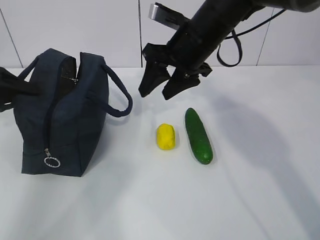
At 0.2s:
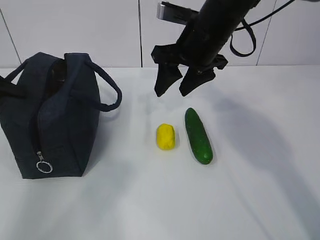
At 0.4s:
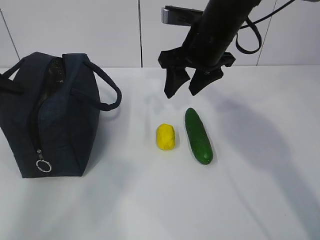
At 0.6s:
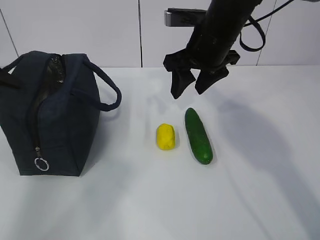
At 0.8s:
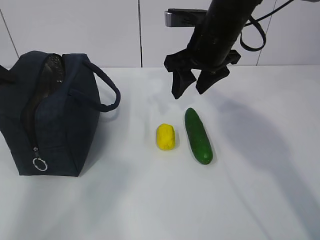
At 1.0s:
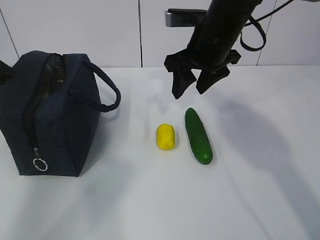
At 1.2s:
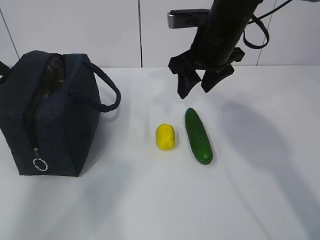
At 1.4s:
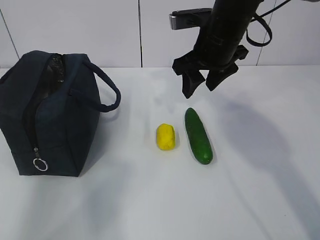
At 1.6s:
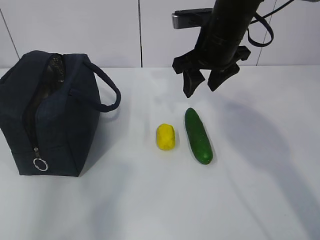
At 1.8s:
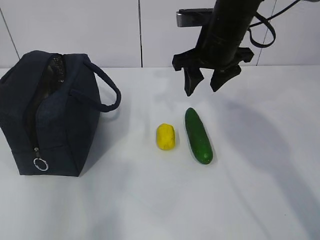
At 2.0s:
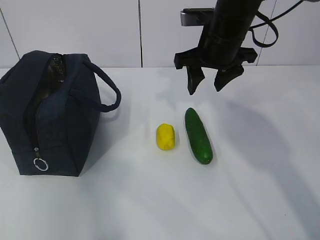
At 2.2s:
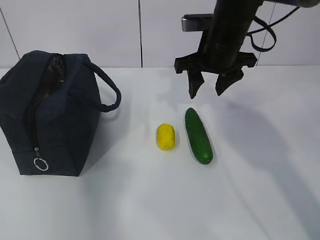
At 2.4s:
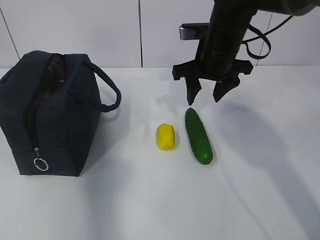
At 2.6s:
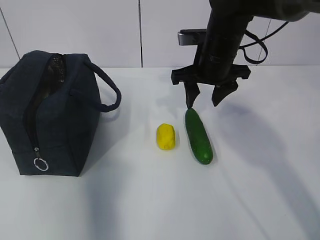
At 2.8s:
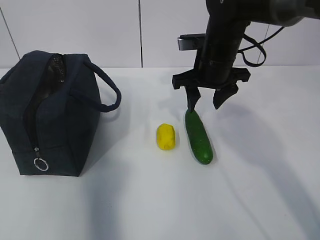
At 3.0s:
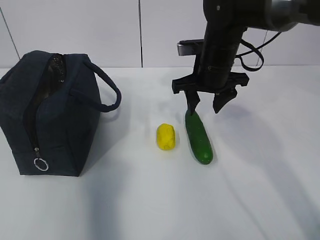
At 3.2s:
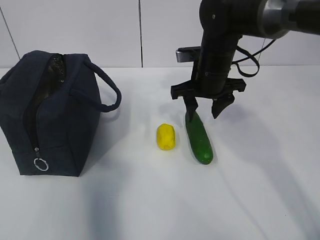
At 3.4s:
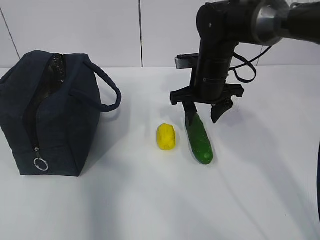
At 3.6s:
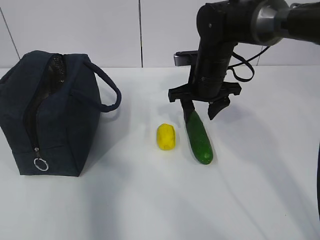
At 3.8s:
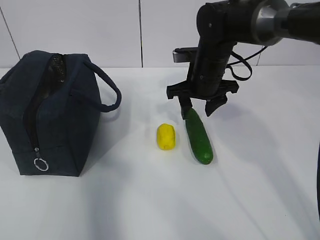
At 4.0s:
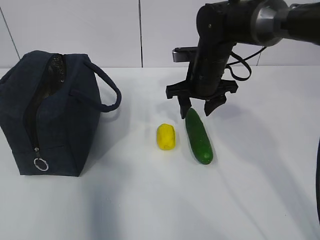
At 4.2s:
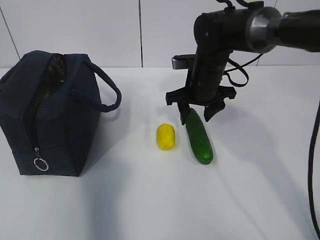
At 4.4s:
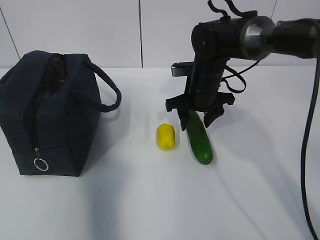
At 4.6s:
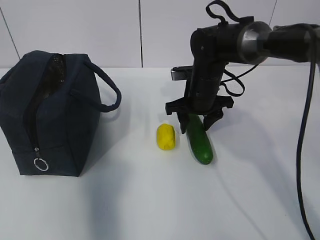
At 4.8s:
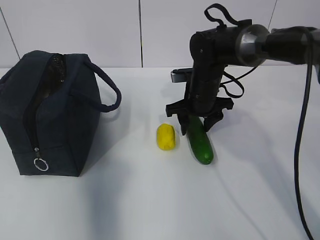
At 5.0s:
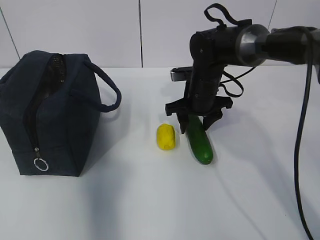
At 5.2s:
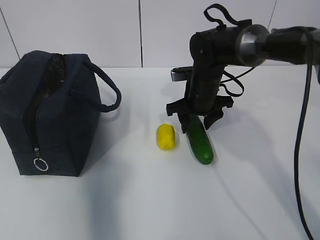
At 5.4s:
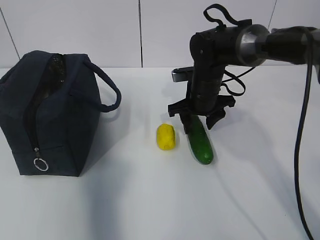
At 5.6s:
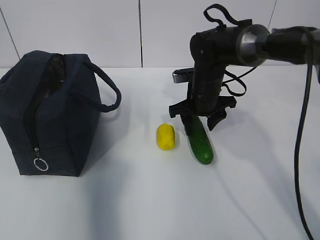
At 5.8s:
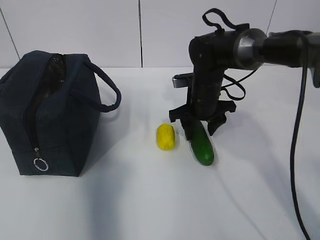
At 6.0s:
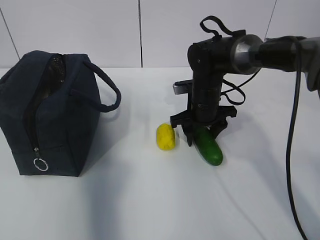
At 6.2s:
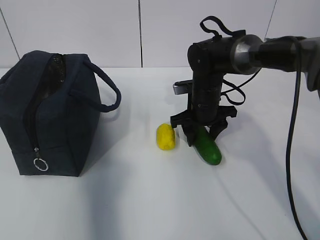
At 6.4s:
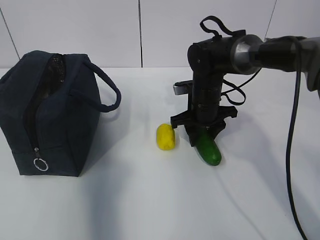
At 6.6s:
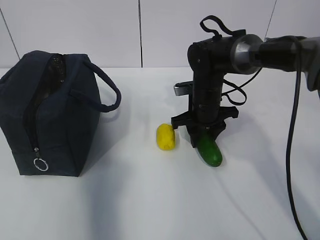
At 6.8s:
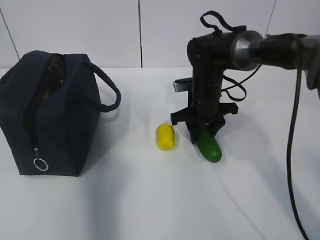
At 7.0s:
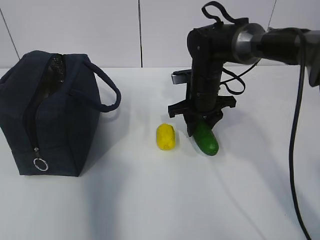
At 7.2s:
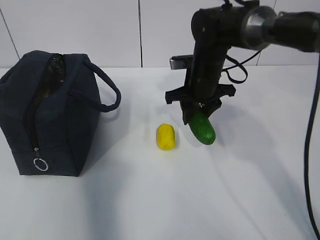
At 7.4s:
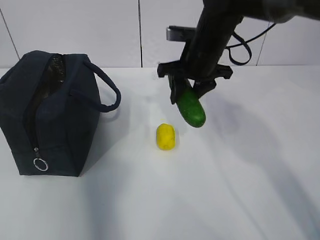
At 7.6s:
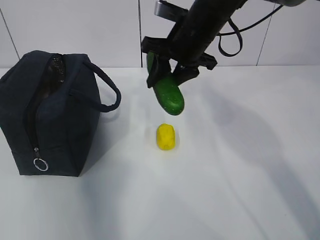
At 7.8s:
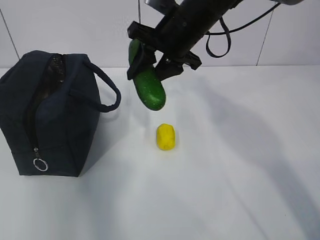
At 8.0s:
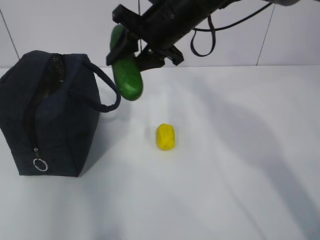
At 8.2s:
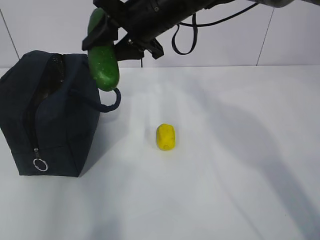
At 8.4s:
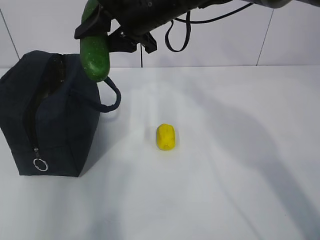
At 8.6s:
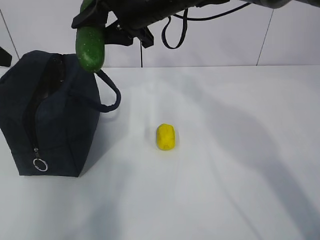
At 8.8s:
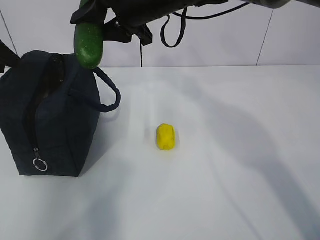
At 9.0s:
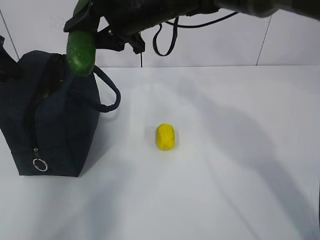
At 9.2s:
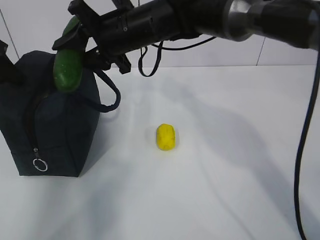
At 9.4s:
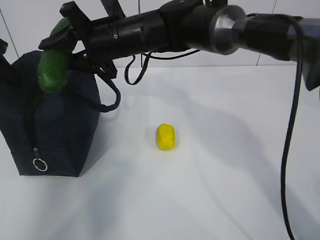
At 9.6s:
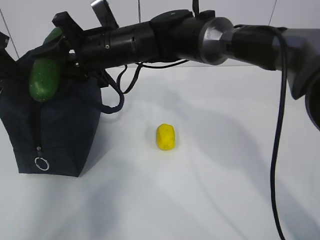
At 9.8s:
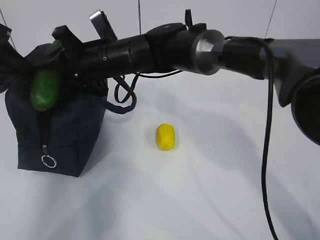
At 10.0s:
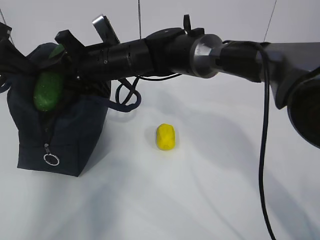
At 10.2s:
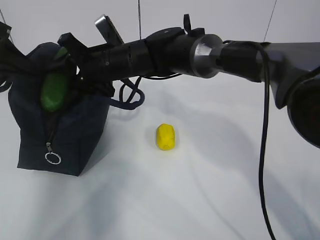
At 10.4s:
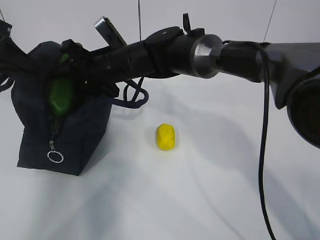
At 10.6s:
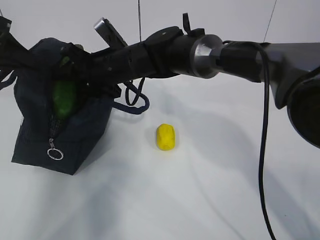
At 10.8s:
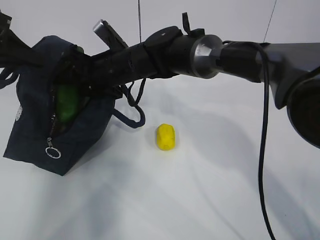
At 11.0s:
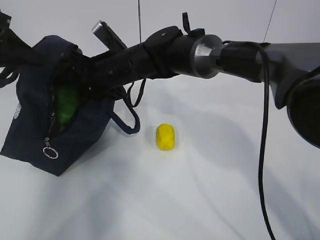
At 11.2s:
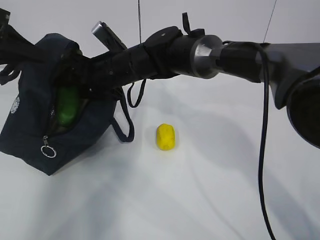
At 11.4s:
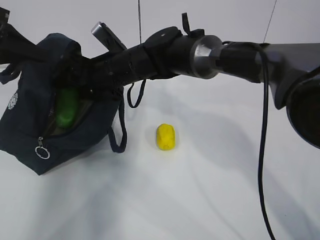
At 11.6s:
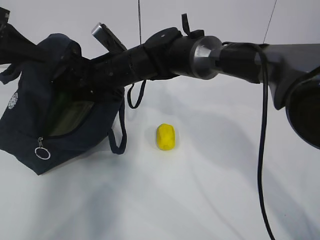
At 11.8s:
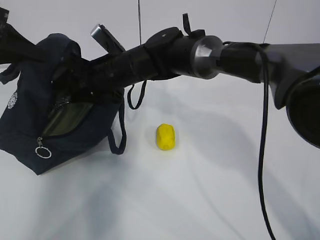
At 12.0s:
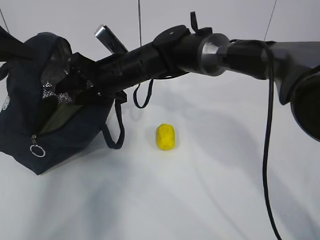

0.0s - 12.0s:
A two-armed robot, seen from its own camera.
Step, 1.4s - 5.8s: Place it into the bag with your right hand.
Step, 6.0s - 10.4s: Grab the lemon with your right hand.
0.0s - 1.6s: The left gripper goes about 10 cm upward, and opens up.
1.6s - 3.0s: The left gripper is displaced backward and upward by about 20 cm; the right gripper moves downward, some 5 cm.
3.0s - 4.4s: The right gripper is displaced downward by approximately 5 cm.
4.4s - 6.0s: The grippers move only a little.
6.0s - 7.6s: The left gripper travels forward by roughly 5 cm; the right gripper travels upward by approximately 15 cm.
7.6s - 9.0s: The right gripper goes roughly 10 cm to the left; the left gripper heads forward and downward, covering some 20 cm.
9.0s - 10.4s: The right gripper shifts some 10 cm downward and to the left; the left gripper closes.
10.4s - 12.0s: There are only small adjustments of the grippers.

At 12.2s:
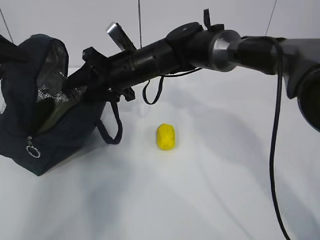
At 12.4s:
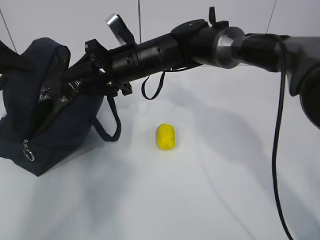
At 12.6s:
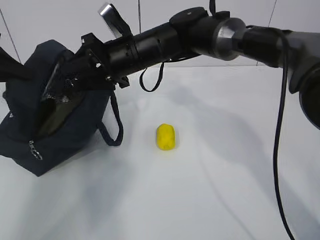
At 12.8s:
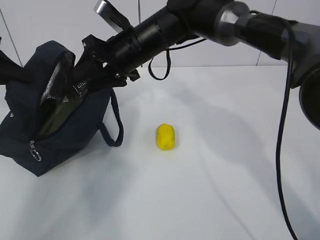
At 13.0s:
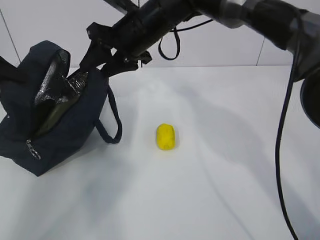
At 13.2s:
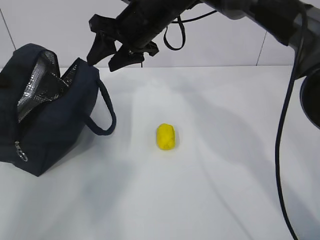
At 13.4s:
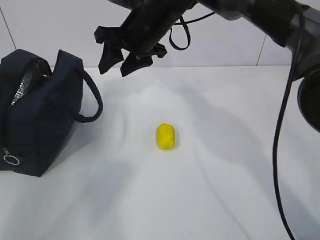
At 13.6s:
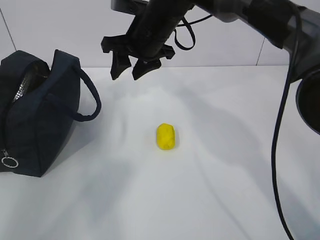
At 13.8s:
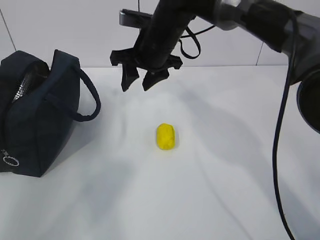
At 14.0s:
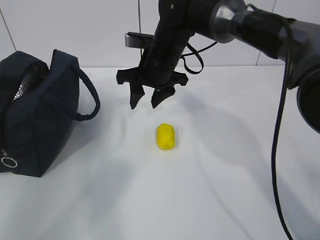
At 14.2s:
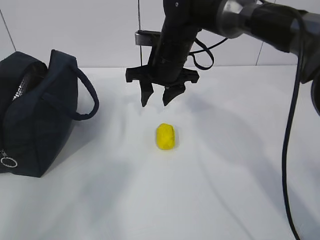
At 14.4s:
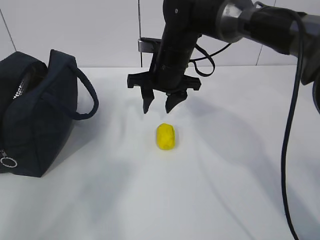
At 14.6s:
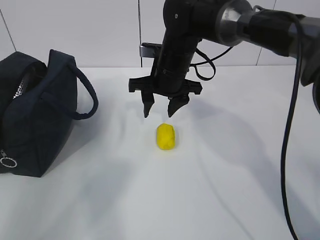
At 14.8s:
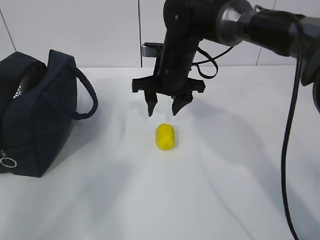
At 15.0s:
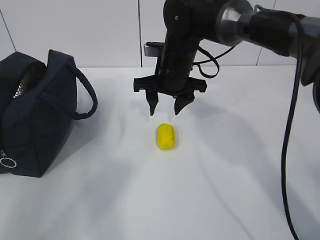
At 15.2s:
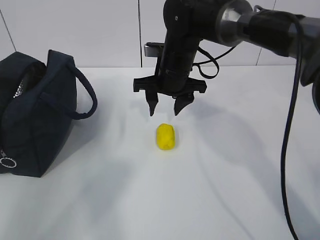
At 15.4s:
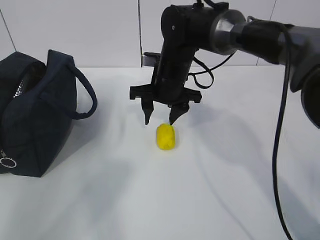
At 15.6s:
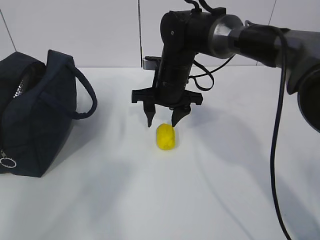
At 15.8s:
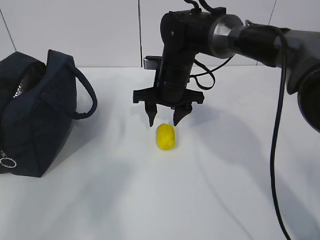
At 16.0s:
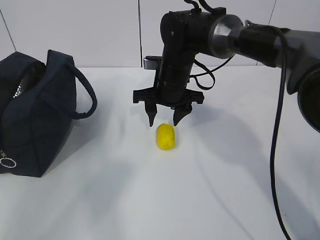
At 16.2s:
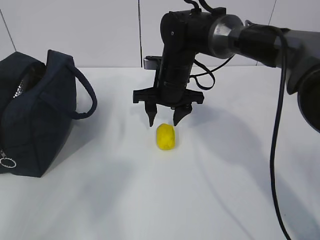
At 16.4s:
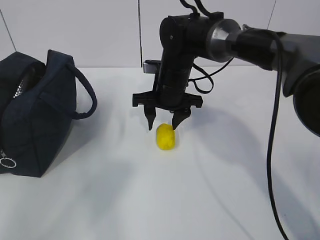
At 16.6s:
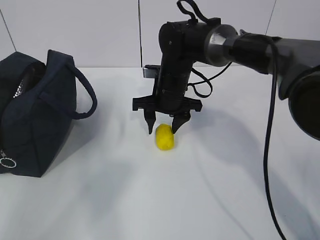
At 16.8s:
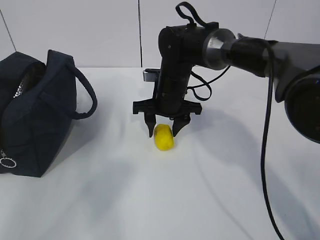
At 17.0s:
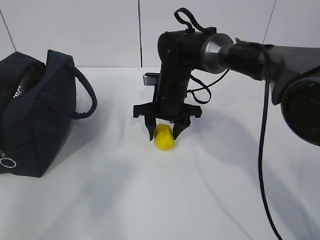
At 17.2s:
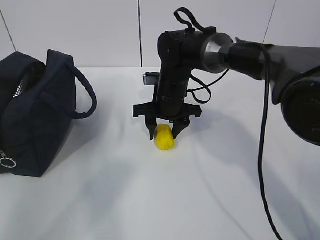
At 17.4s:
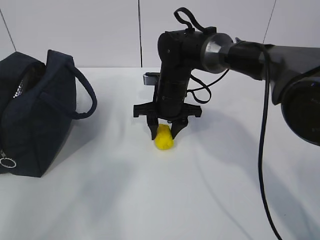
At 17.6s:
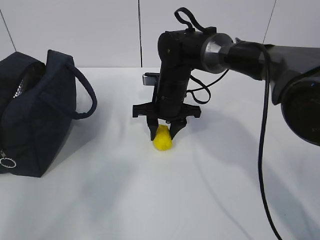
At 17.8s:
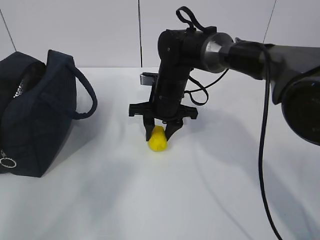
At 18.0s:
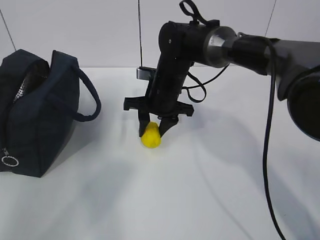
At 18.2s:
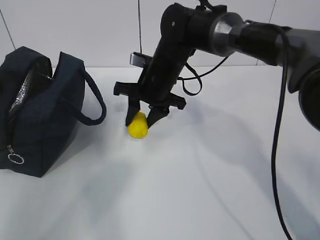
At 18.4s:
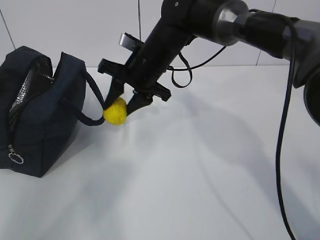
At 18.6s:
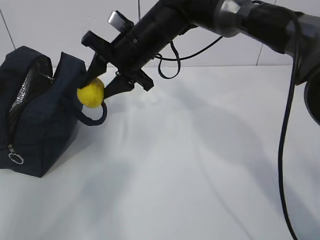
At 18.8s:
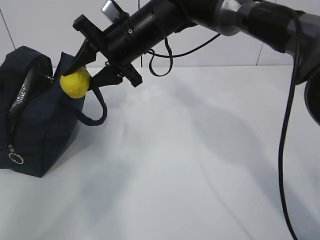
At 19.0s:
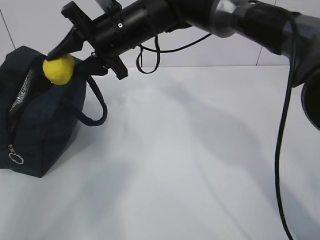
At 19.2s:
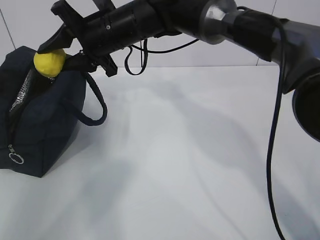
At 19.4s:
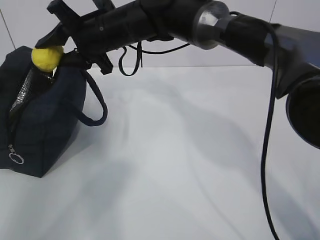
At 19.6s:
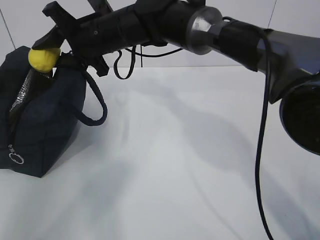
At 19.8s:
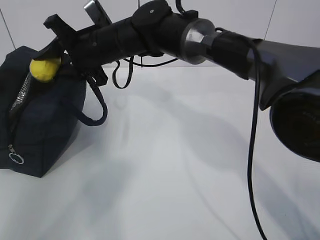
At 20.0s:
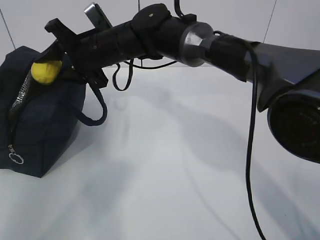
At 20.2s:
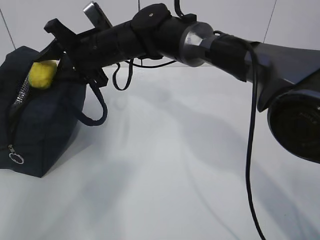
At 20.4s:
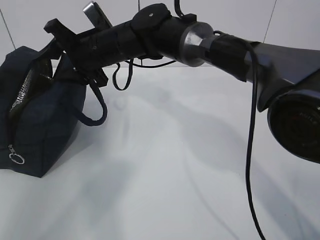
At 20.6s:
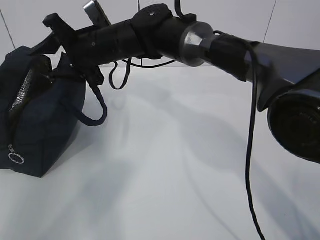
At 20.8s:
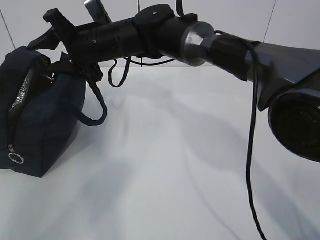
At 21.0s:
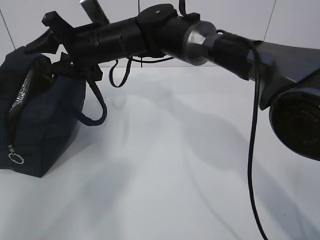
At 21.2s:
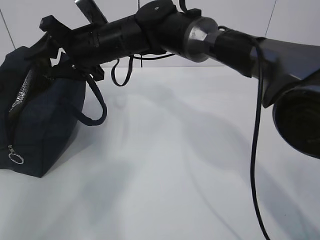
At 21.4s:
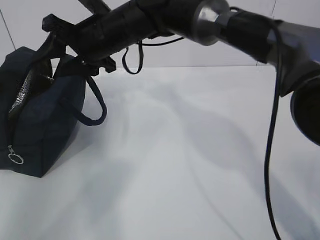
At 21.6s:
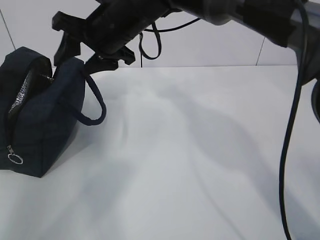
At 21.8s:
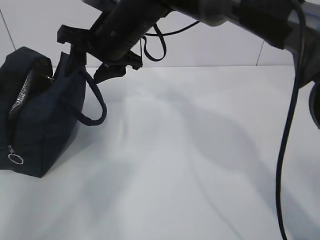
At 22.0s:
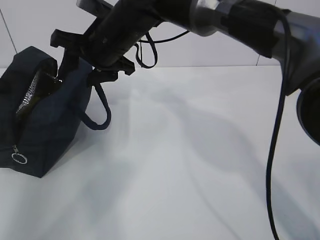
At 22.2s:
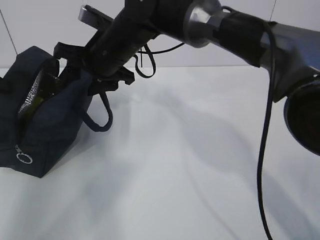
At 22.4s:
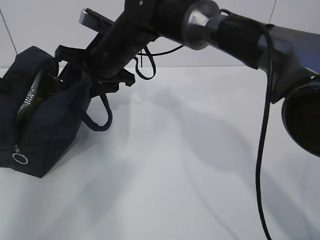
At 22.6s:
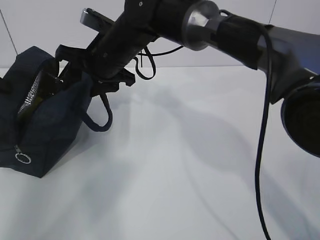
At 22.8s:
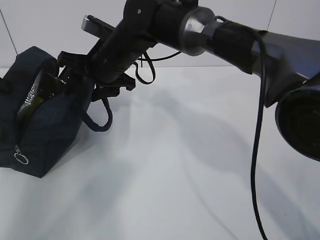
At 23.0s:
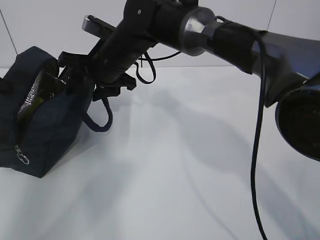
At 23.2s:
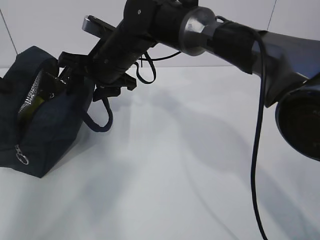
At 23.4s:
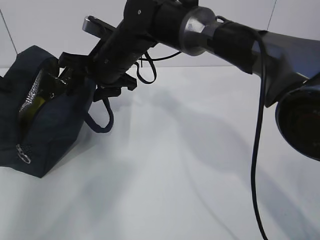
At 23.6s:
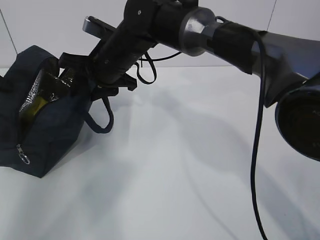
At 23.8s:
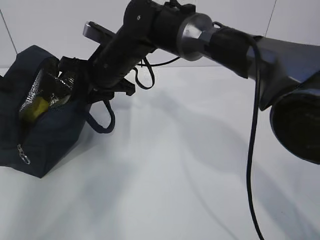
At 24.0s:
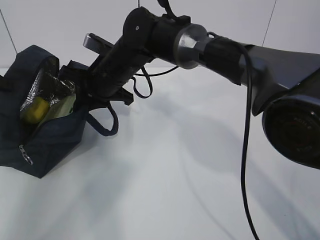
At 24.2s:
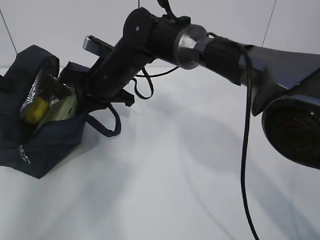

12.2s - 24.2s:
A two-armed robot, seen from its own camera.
Step, 13.2s - 16.2s: Grab the lunch bag with your right hand.
Step, 16.4s - 19.8s: Move the lunch bag to the right.
12.2s - 13.8s: The left gripper moves to the left and downward, roughly 10 cm; the right gripper moves approximately 5 cm.
13.8s - 15.2s: The right gripper shifts by approximately 5 cm.
15.2s - 18.2s: The grippers stay close to where they were, moving slightly.
18.2s - 19.8s: The right gripper shifts roughly 10 cm to the left and upward.
19.8s - 21.2s: The grippers make only small movements.
22.6s - 24.2s: The right gripper closes.
